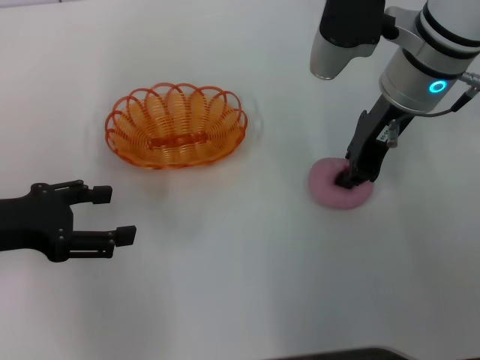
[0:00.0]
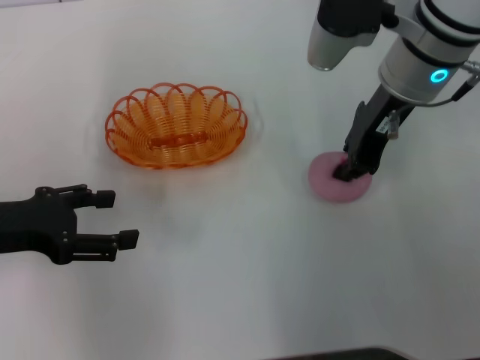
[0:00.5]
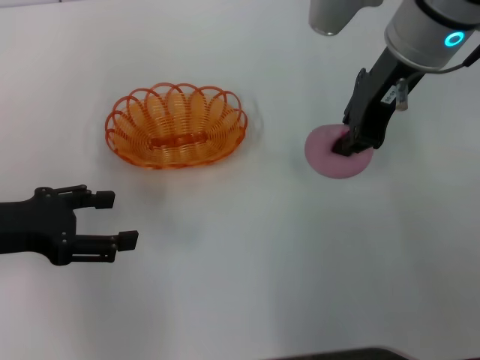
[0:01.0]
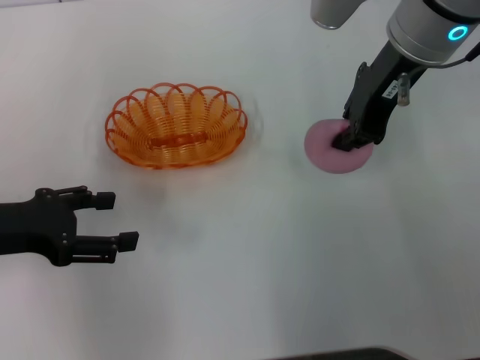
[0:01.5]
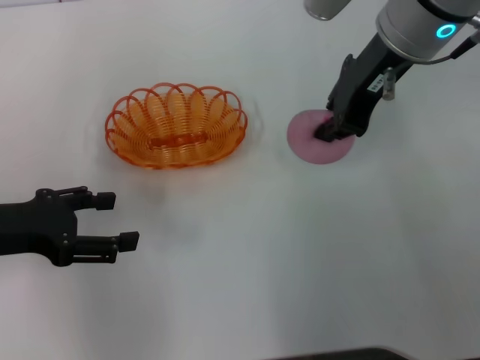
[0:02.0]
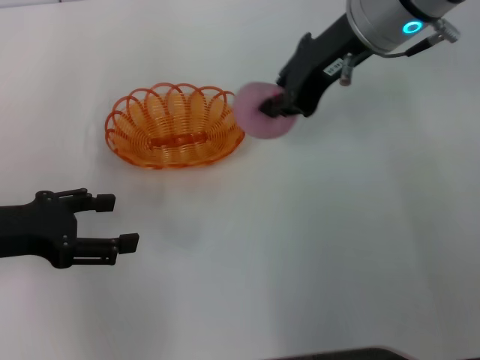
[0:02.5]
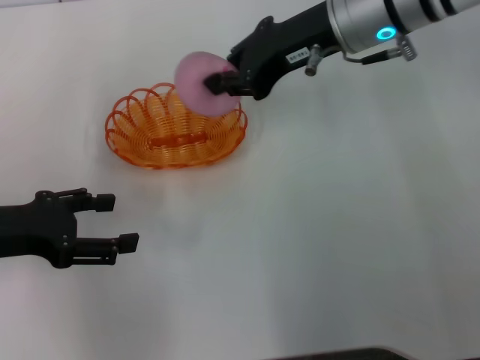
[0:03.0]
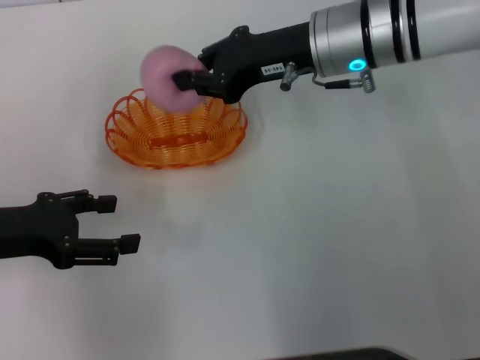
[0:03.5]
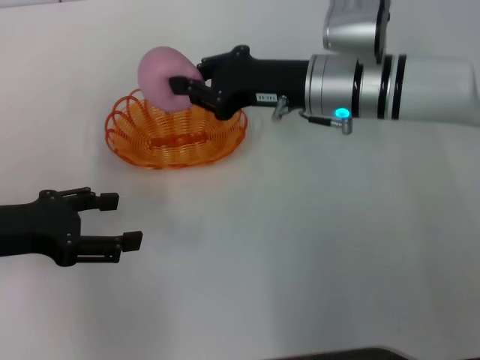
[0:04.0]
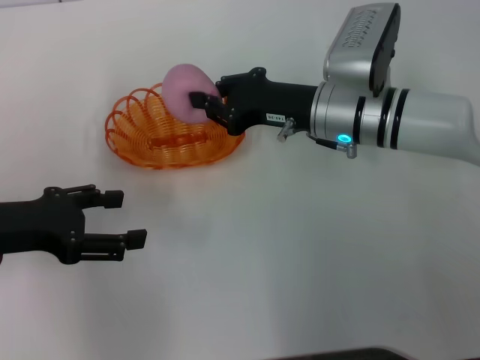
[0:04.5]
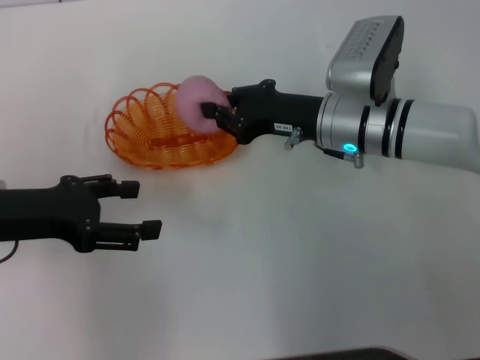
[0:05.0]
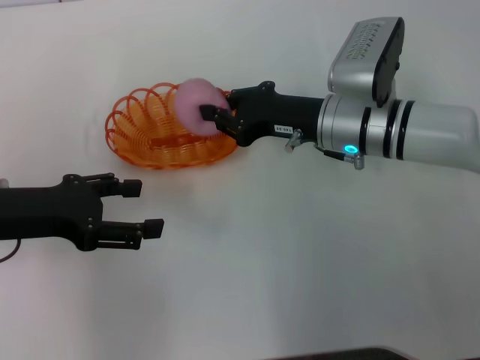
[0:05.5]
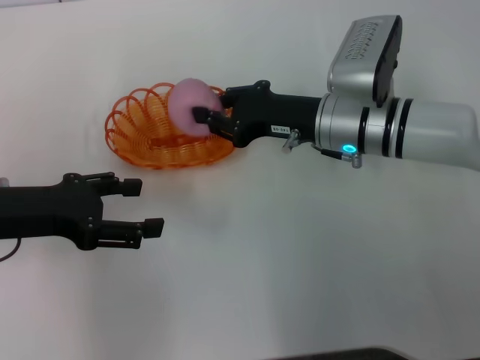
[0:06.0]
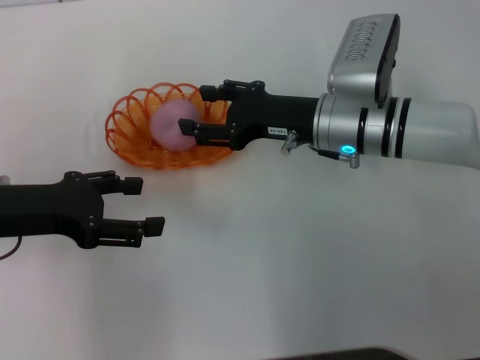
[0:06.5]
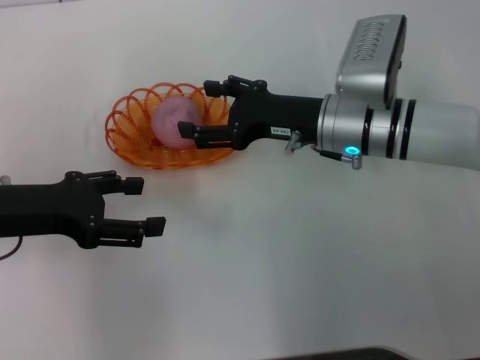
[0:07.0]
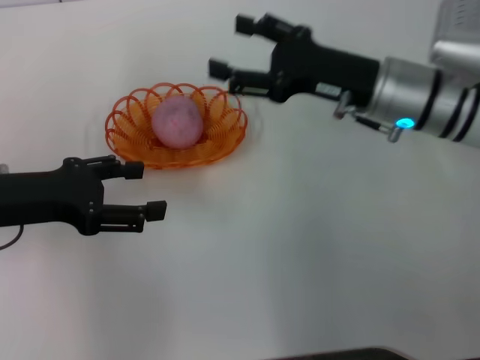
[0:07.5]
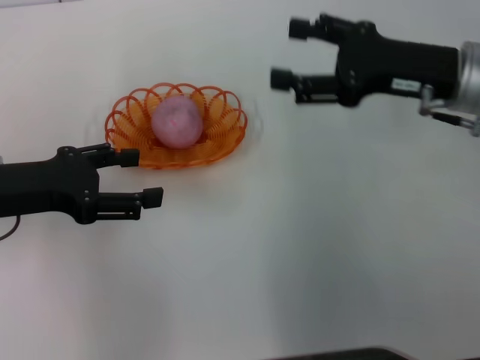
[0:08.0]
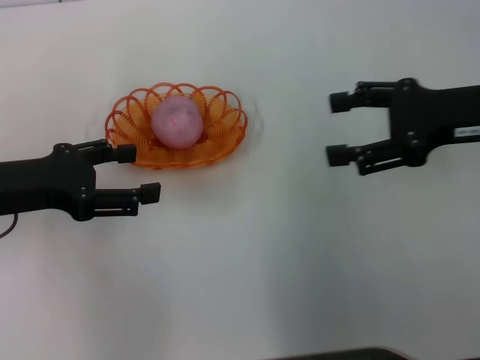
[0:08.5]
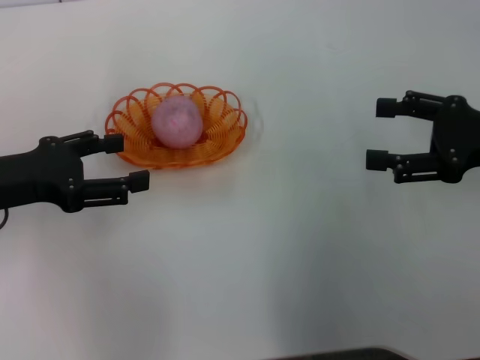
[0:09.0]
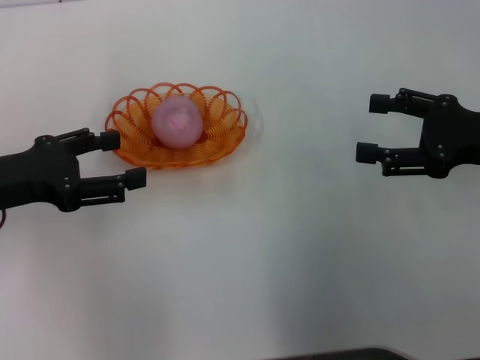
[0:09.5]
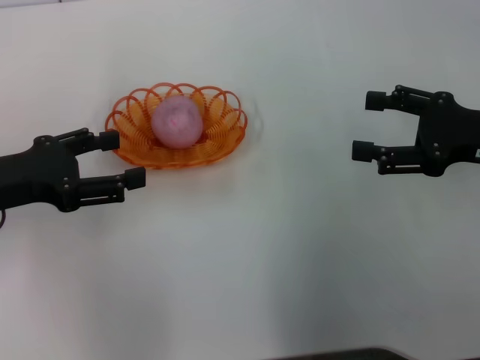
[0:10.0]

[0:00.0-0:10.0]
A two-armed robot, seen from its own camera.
Step, 0:02.5 to 0:07.5: Place the peach into the basket with the right gripper.
0:00.0 to 0:02.0: The right gripper moves upward, roughly 5 cm.
0:02.0 to 0:04.0: The right gripper travels downward by some 10 cm.
0:04.0 to 0:06.0: There are only small adjustments of the grippers.
0:06.0 to 0:08.0: The right gripper travels to the right and upward by approximately 10 cm, and opens.
0:08.0 to 0:10.0: The right gripper heads to the right and backward, covering about 10 cm.
